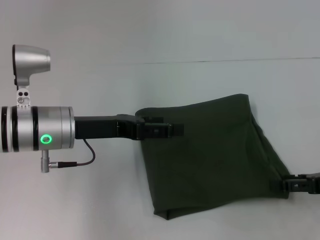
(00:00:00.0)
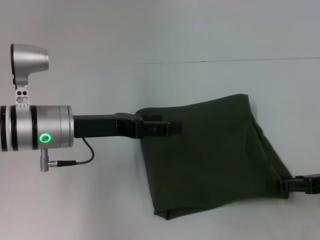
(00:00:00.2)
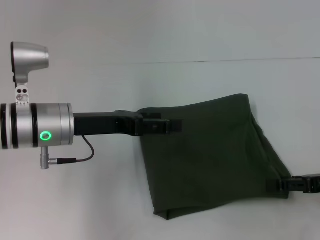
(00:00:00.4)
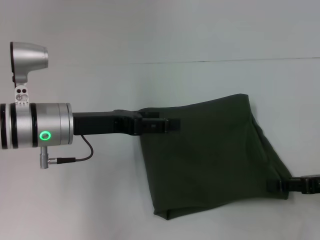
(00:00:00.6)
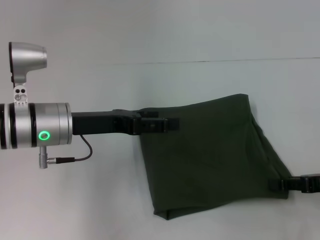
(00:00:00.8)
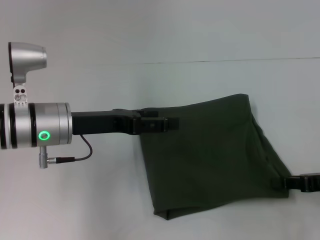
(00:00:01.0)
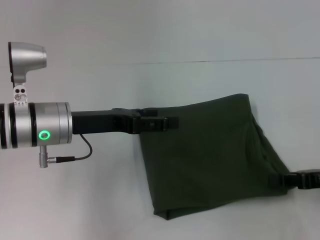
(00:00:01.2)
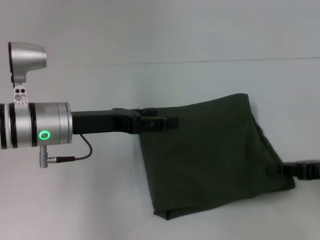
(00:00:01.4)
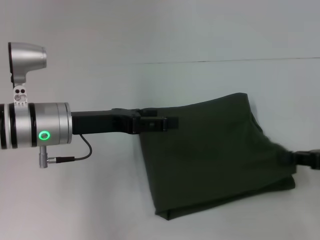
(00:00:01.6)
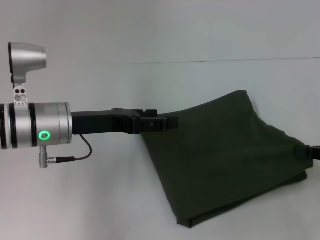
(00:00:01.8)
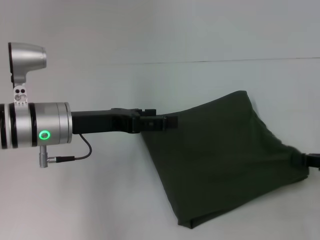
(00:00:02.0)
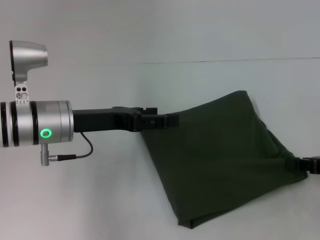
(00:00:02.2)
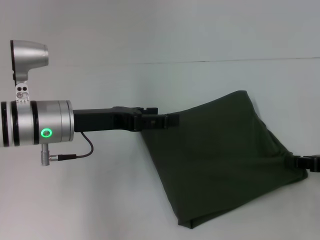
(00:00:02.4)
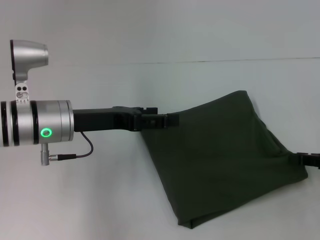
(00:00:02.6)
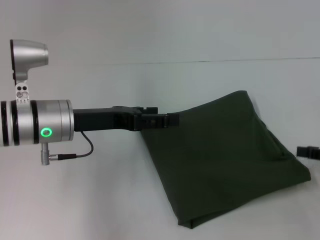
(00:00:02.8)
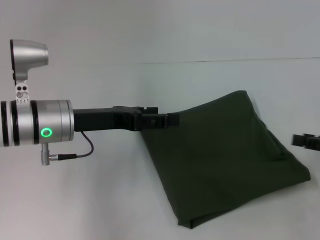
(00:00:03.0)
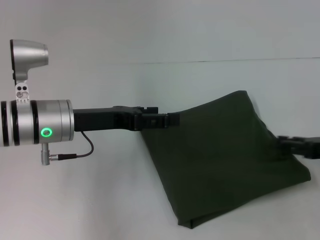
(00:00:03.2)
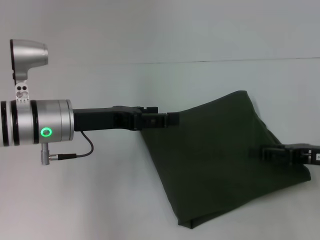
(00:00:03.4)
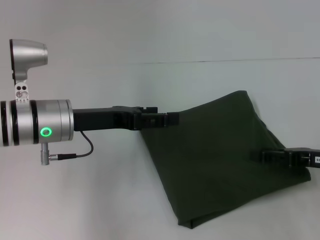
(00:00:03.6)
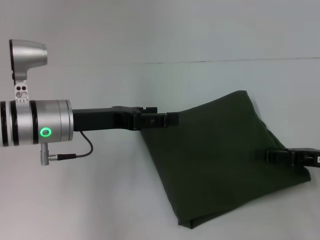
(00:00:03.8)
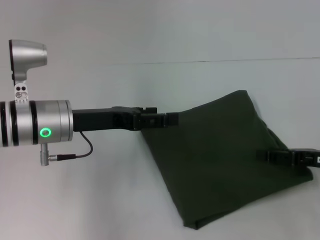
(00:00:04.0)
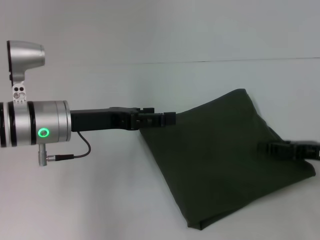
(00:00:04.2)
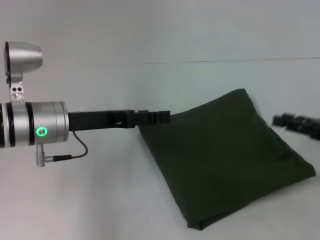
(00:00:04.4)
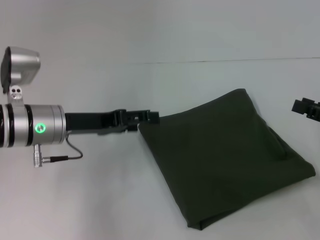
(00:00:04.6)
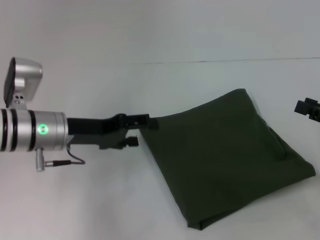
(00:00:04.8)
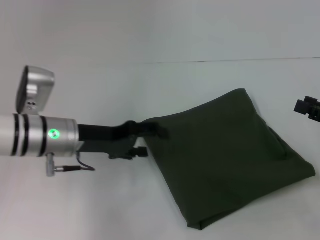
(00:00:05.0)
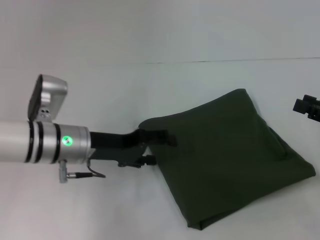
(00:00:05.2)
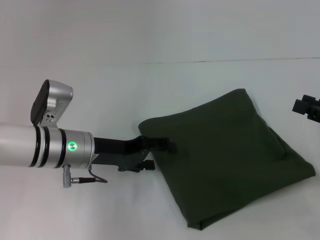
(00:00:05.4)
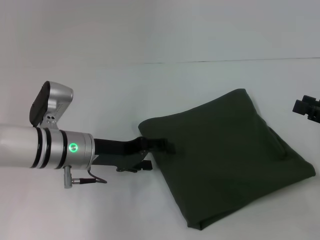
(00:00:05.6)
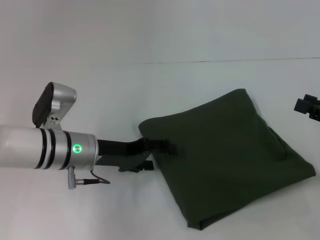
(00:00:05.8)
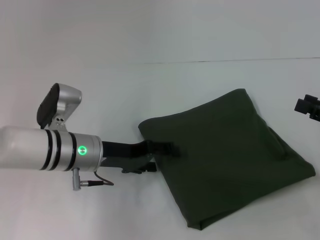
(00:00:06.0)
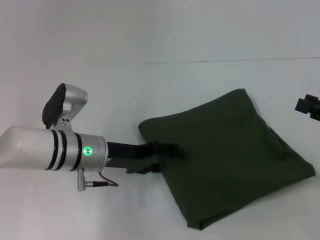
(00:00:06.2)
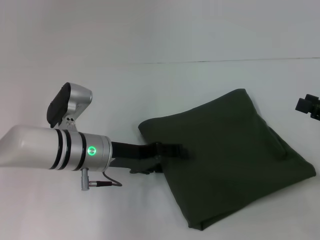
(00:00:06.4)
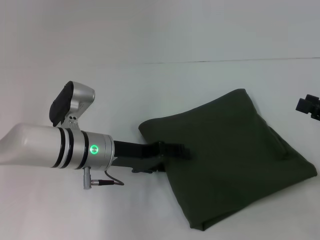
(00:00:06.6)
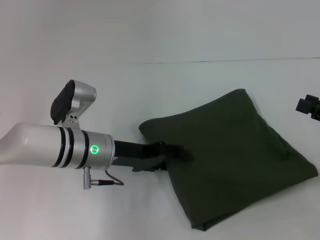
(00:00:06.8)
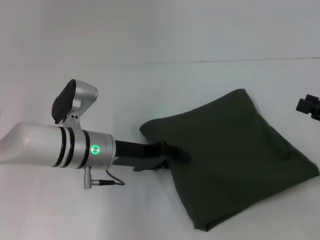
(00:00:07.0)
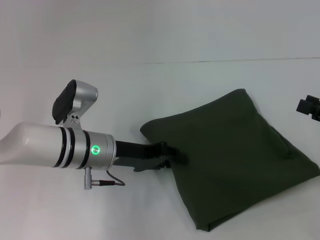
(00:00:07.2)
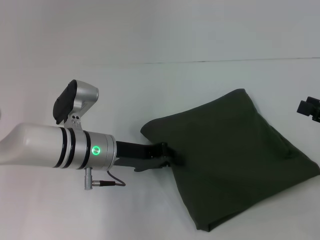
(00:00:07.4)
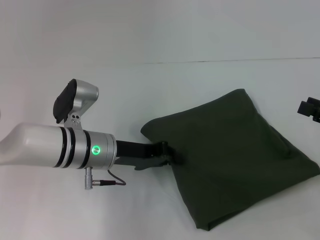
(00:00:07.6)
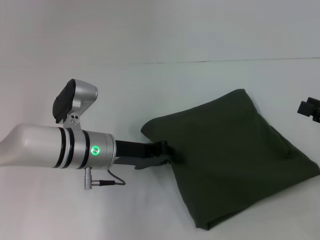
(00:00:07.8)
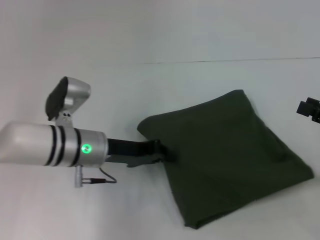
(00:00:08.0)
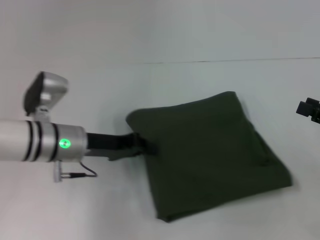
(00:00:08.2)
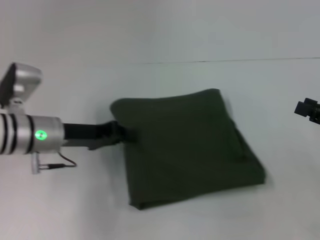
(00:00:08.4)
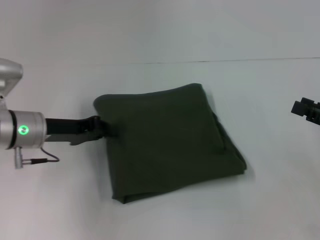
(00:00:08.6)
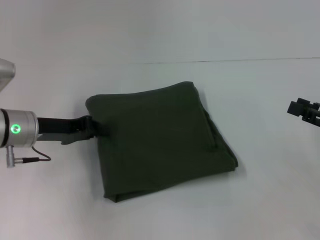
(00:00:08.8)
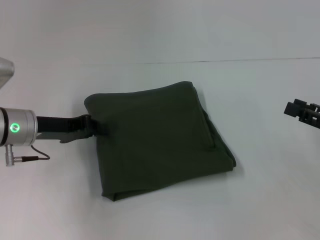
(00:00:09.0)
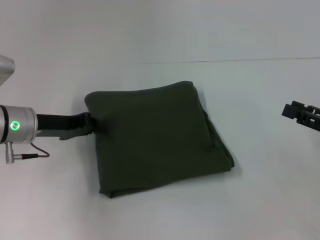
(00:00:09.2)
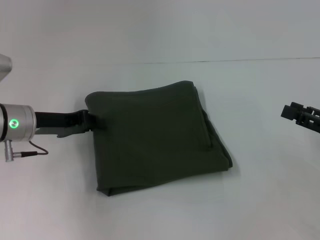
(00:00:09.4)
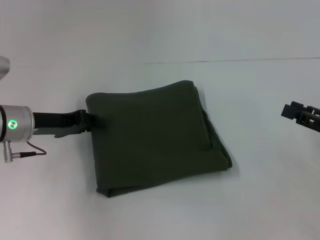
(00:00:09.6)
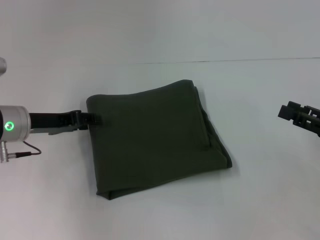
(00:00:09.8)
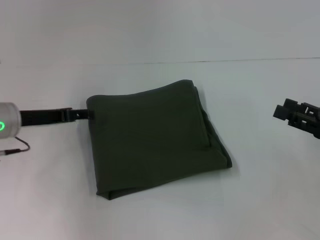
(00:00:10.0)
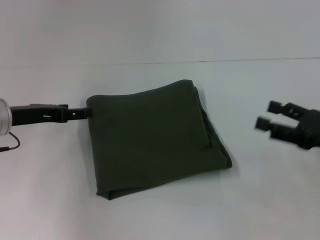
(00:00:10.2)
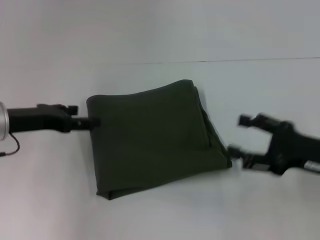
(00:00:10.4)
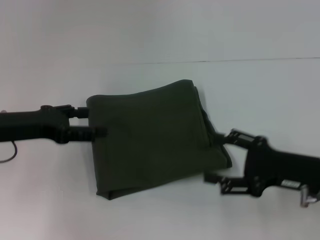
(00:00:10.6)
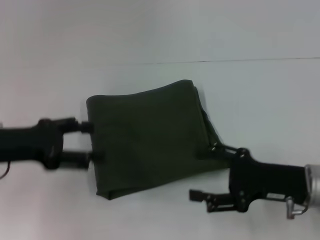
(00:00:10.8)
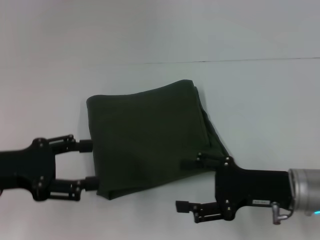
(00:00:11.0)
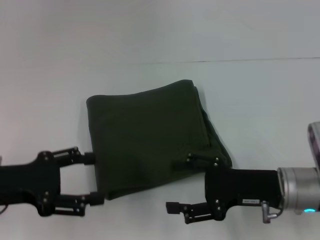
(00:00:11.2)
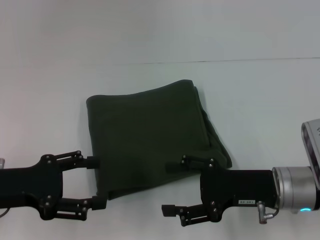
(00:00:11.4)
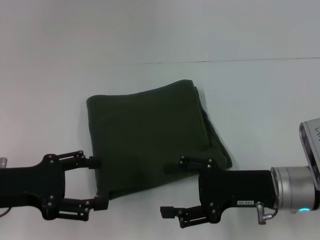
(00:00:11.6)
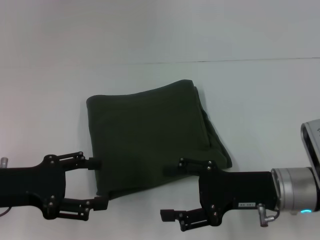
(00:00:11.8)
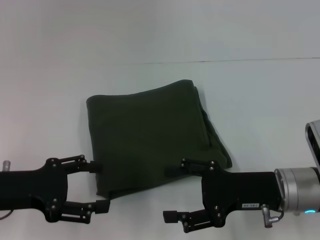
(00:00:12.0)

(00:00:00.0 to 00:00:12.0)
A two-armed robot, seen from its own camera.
00:00:00.0 - 00:00:01.6: The right gripper closes up.
00:00:01.6 - 00:00:03.0: The right gripper opens its fingers.
00:00:04.4 - 00:00:06.0: The left gripper shifts roughly 5 cm downward.
00:00:06.0 - 00:00:07.6: The left gripper closes.
00:00:07.6 - 00:00:09.0: The left gripper is displaced to the left by roughly 10 cm.
00:00:09.0 - 00:00:10.4: The left gripper opens its fingers, while the right gripper moves to the left, roughly 5 cm.
00:00:10.4 - 00:00:12.0: The left gripper travels backward by about 10 cm. The right gripper goes some 10 cm to the left.
